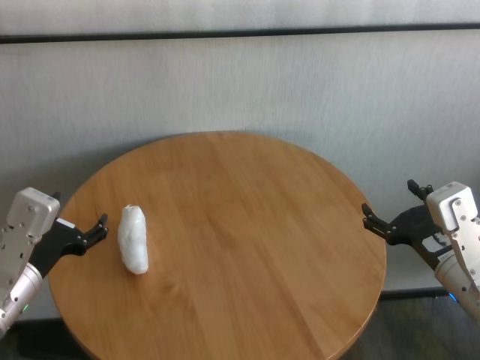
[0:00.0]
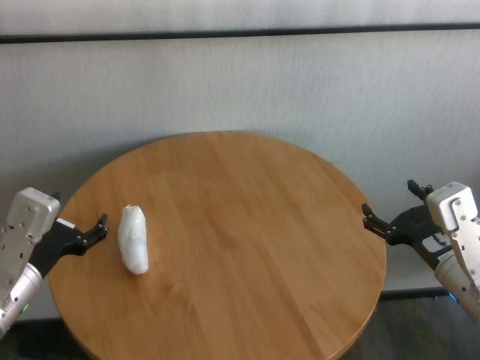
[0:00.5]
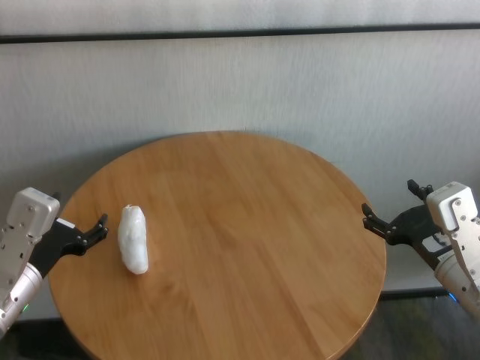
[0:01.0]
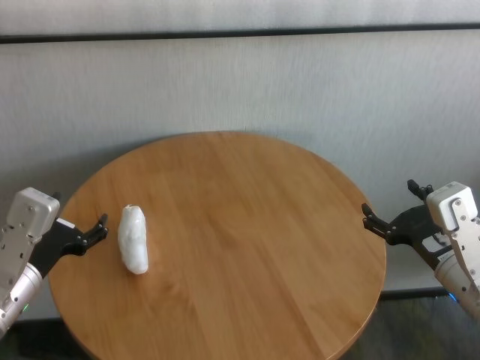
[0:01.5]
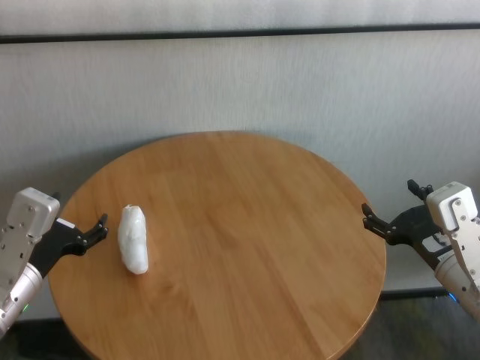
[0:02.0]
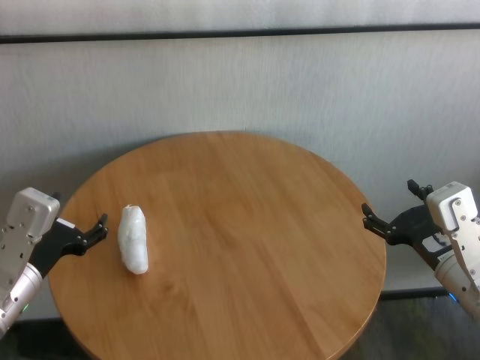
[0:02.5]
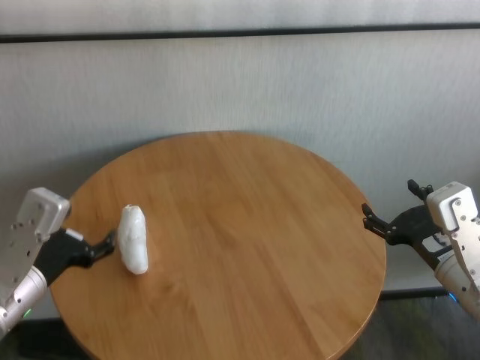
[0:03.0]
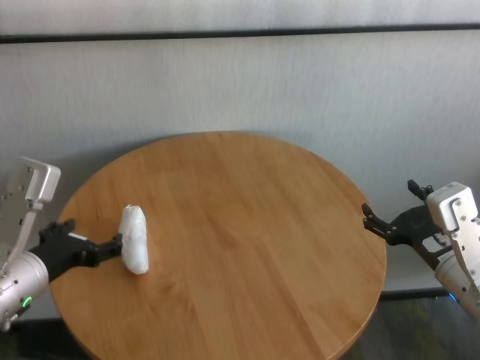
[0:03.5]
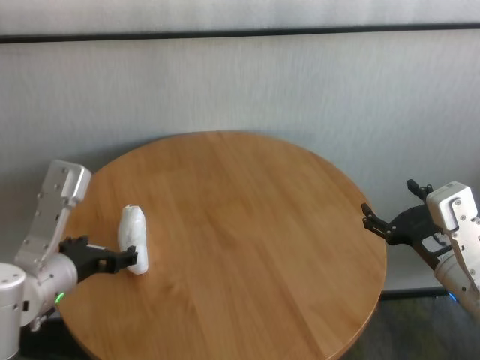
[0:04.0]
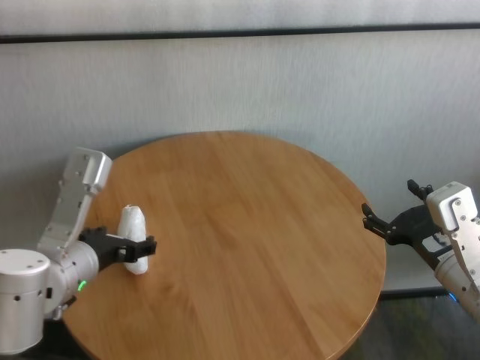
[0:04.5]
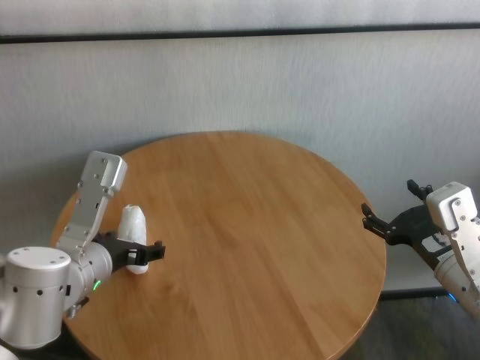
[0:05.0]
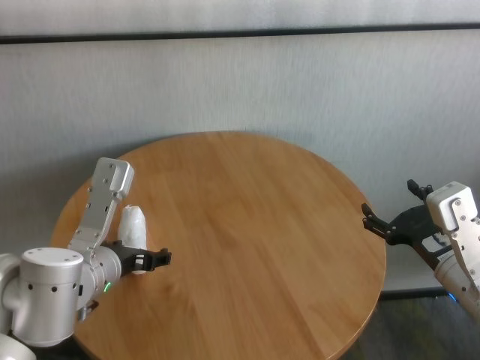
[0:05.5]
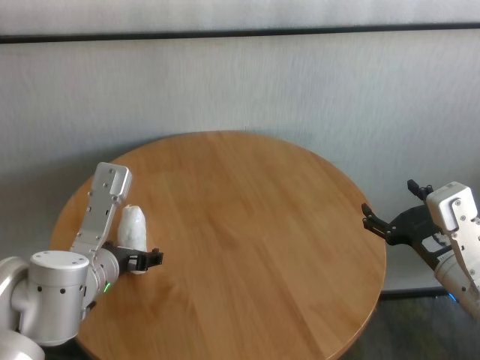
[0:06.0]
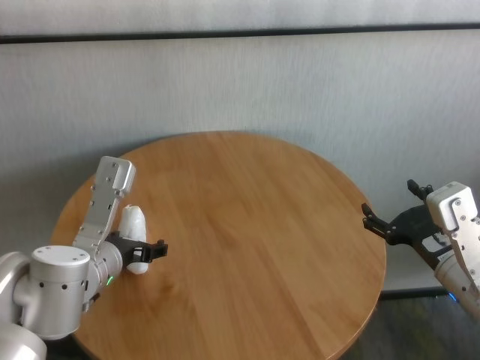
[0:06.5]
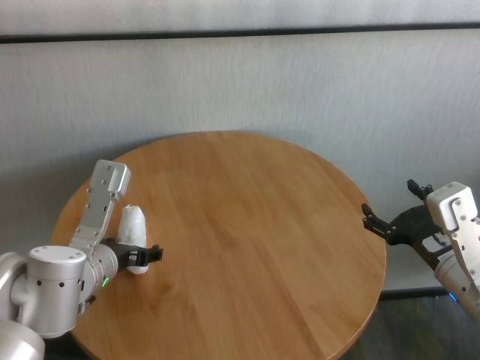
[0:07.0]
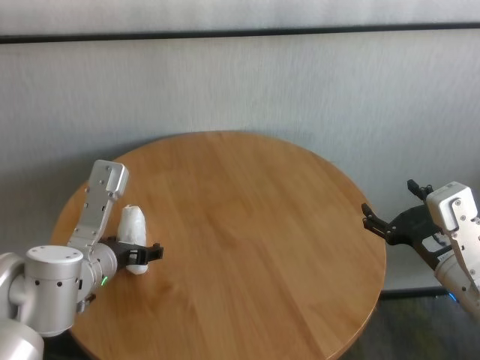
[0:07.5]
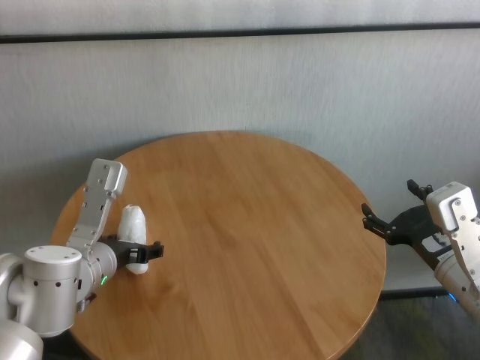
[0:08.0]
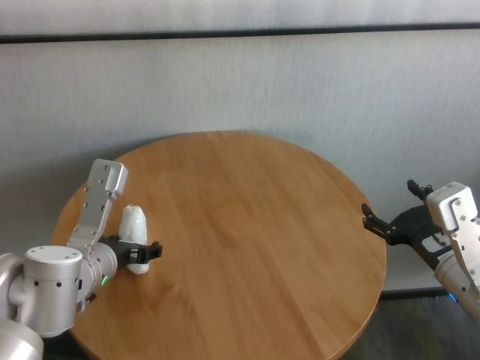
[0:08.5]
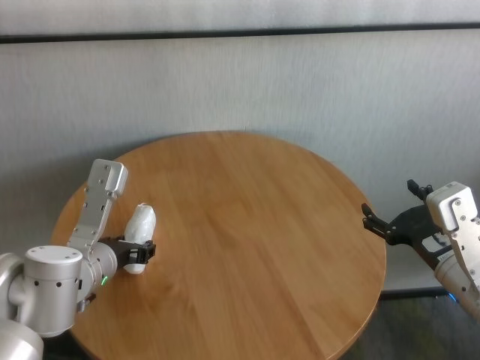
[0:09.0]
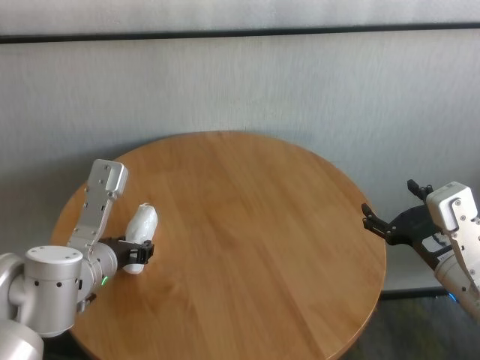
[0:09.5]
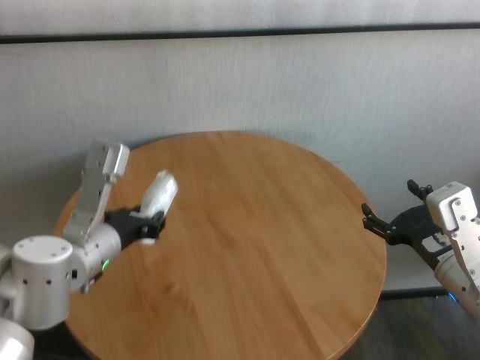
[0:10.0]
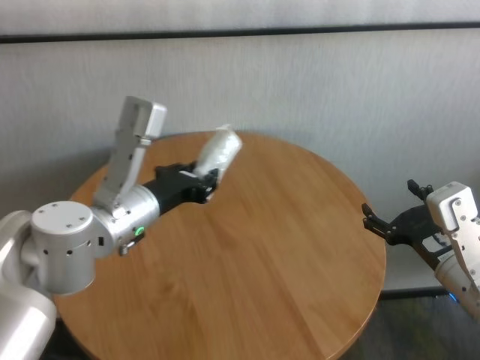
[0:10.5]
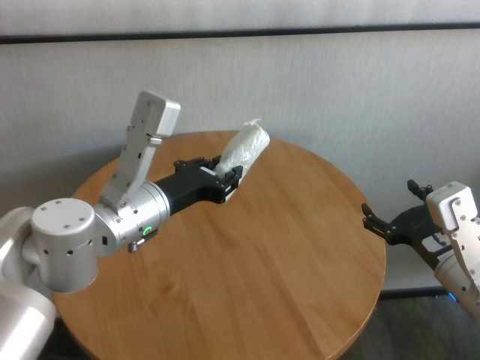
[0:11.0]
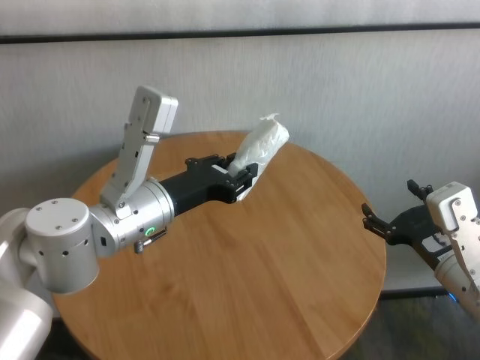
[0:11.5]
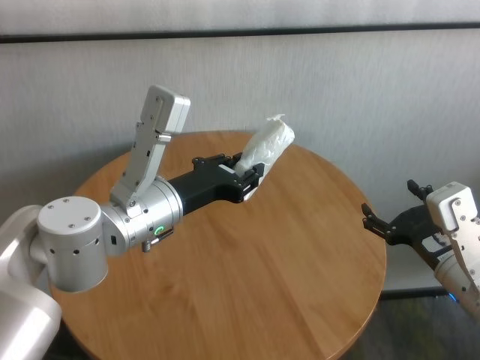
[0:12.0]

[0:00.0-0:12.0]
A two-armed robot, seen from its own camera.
Task of the whole recording: One hand took the sandbag from the other hand and placed it on the table.
Step, 0:00.0 to 0:09.0: Grasp the paper ball with left gripper.

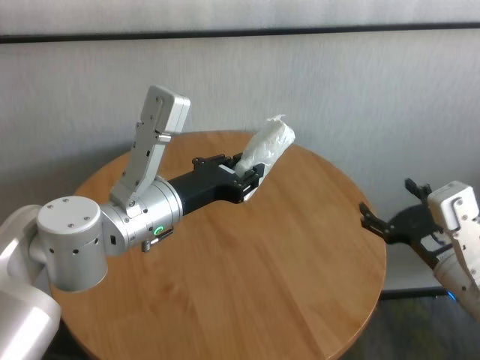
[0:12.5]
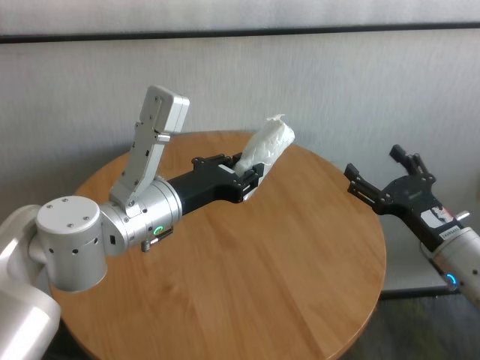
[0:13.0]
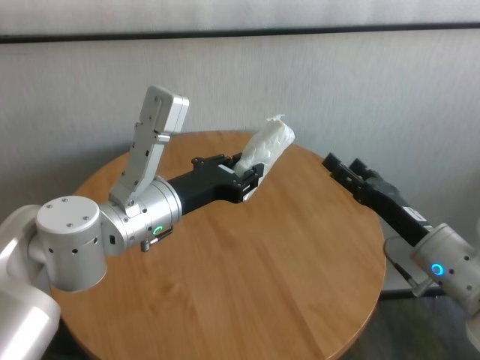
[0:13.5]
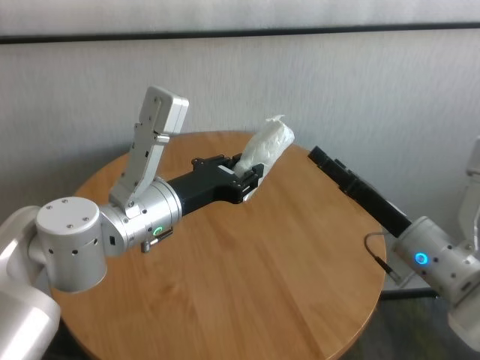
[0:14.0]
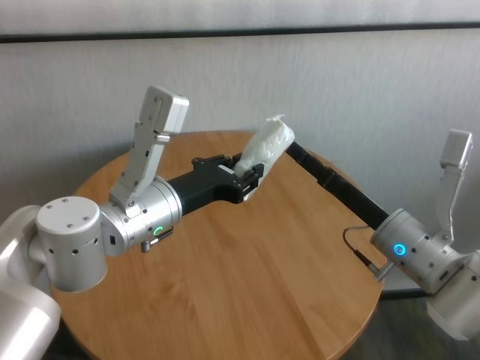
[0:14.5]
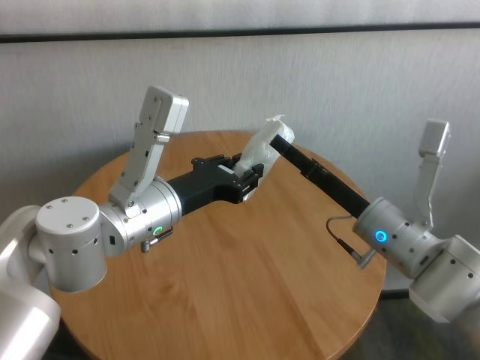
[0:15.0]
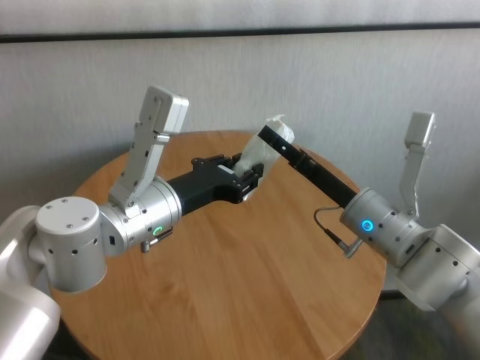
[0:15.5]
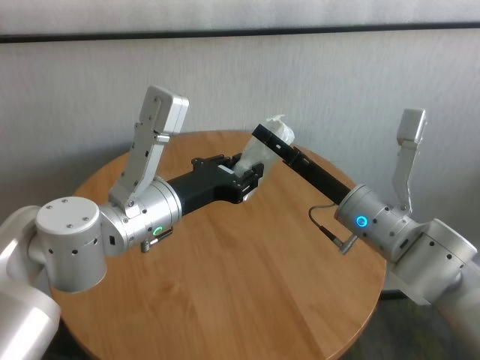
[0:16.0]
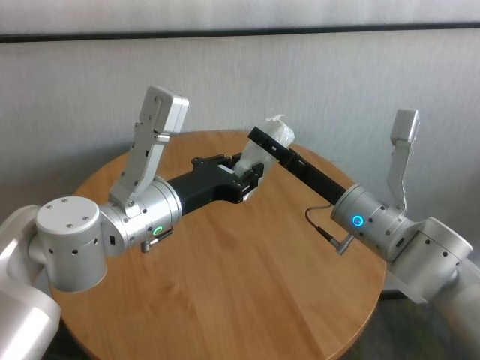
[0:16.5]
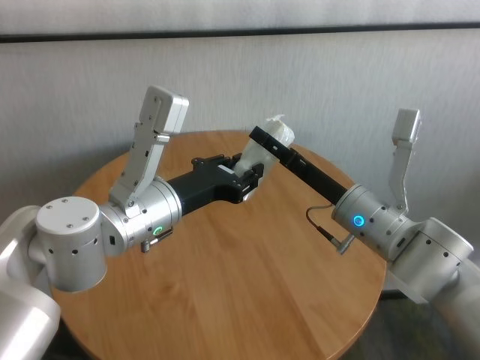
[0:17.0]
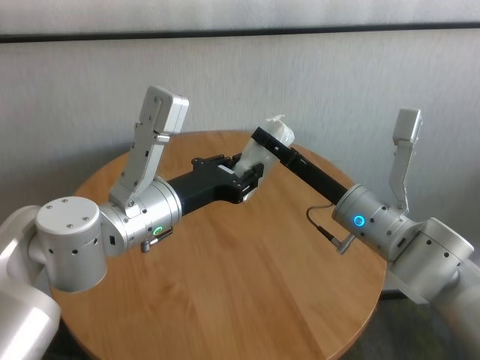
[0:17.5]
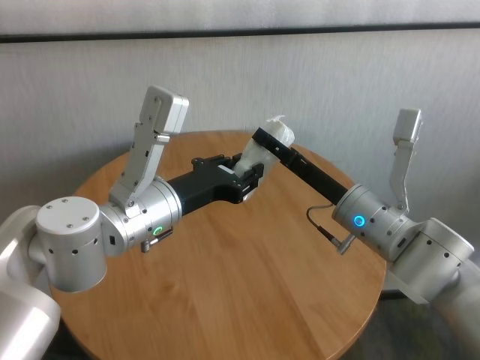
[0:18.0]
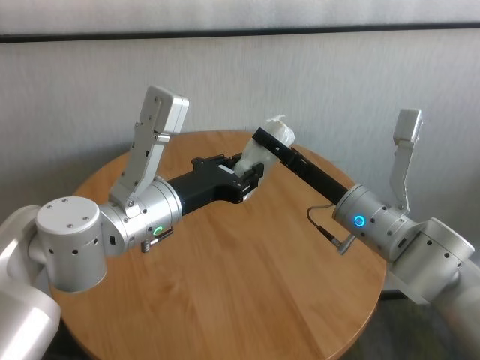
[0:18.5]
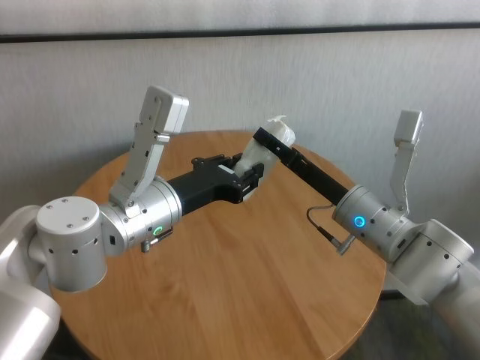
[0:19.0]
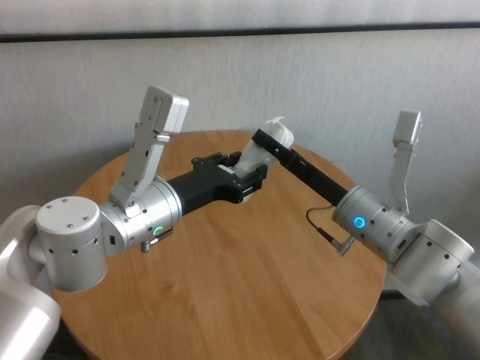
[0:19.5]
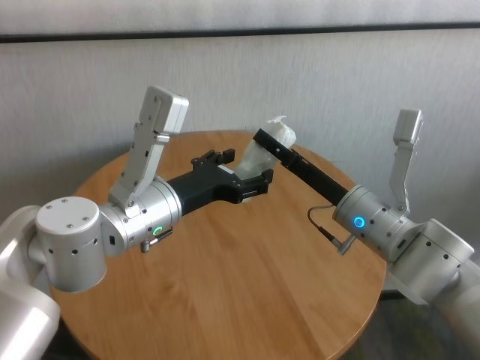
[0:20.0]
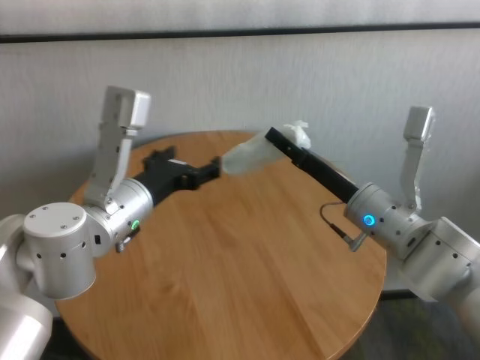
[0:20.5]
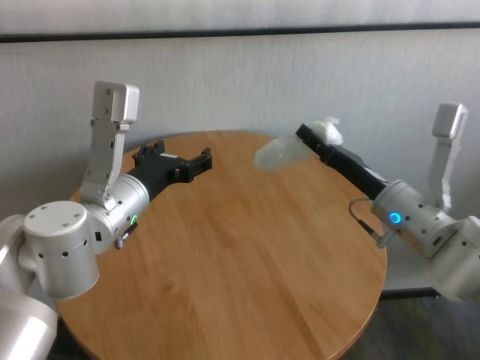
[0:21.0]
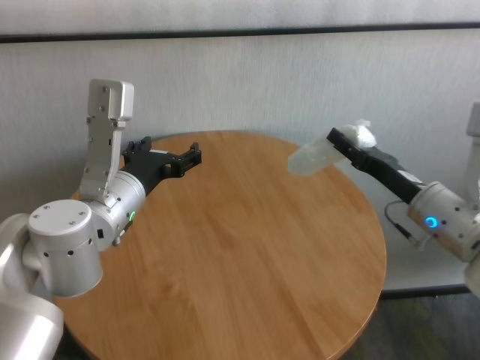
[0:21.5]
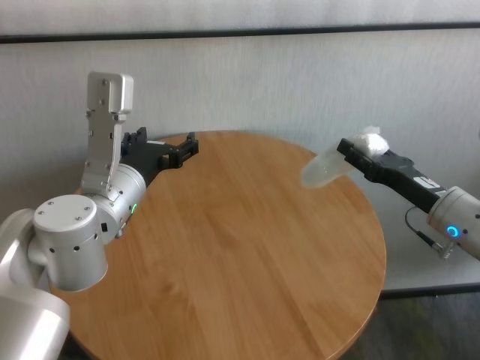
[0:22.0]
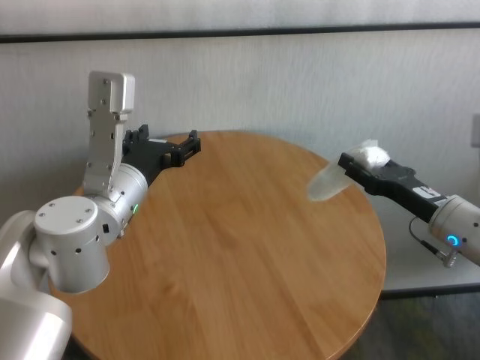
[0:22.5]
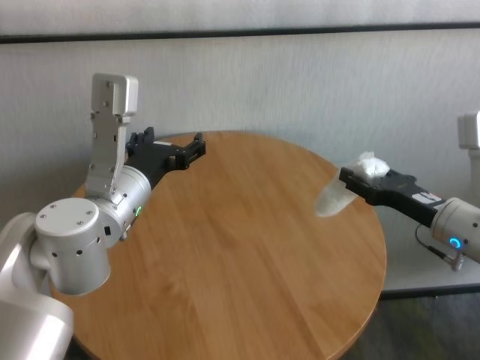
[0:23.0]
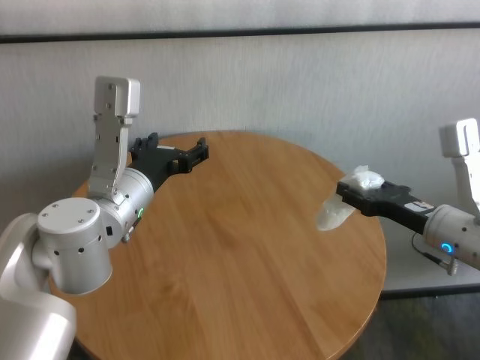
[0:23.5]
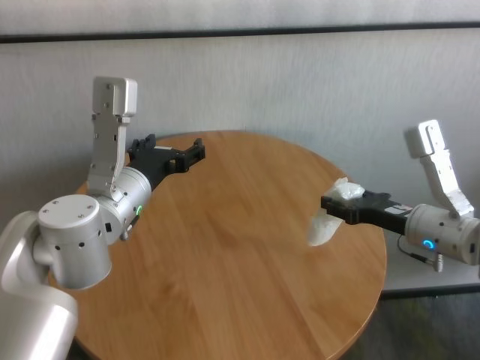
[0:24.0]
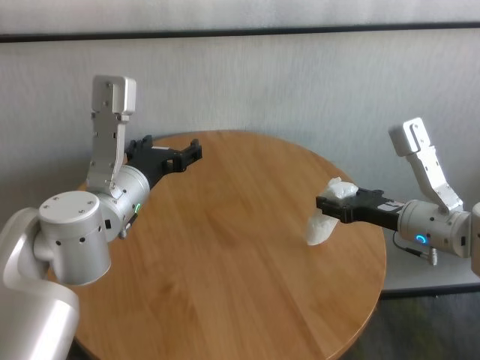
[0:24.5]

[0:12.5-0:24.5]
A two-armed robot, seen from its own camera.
Task of the whole recording: One hand took the sandbag from the other hand and placed it on the table.
Step, 0:12.5 to 0:20.0: Pass the paper ball to the right gripper.

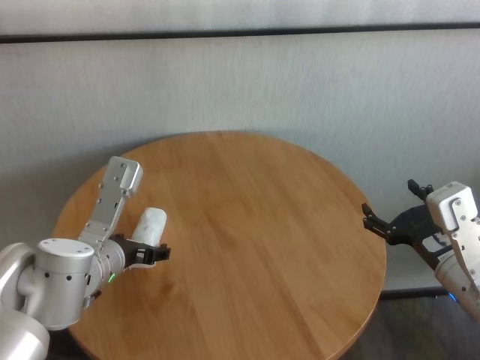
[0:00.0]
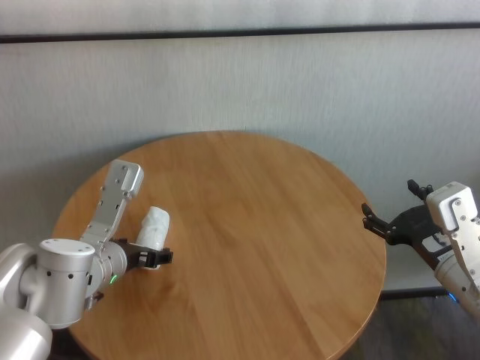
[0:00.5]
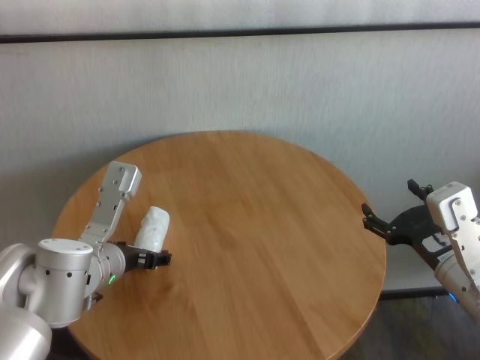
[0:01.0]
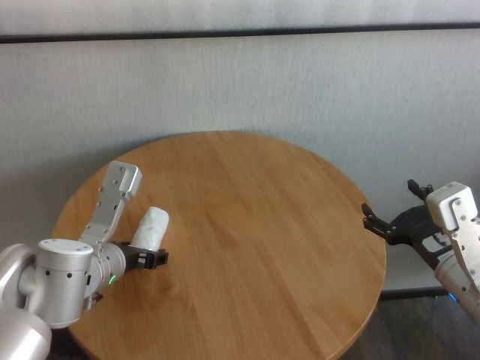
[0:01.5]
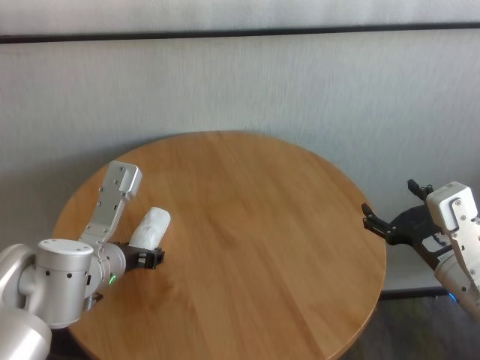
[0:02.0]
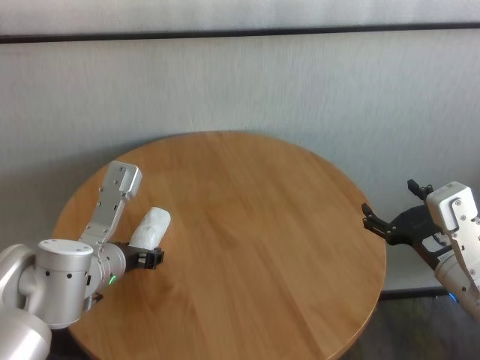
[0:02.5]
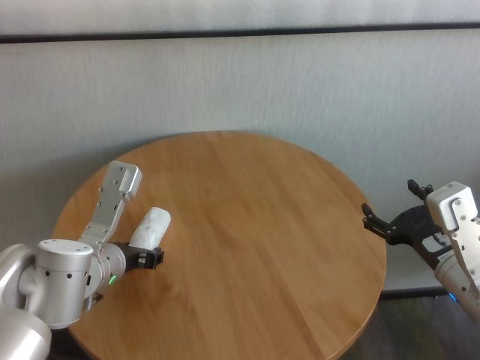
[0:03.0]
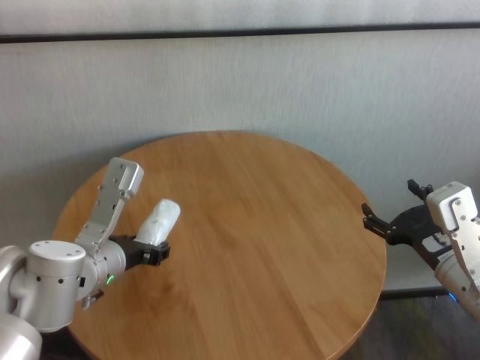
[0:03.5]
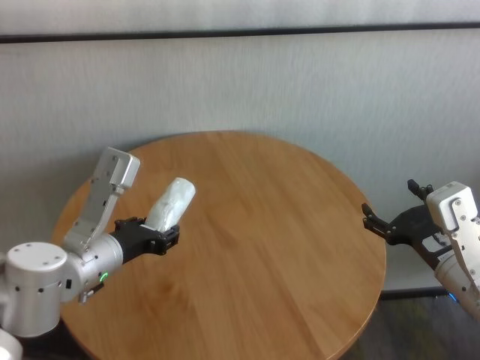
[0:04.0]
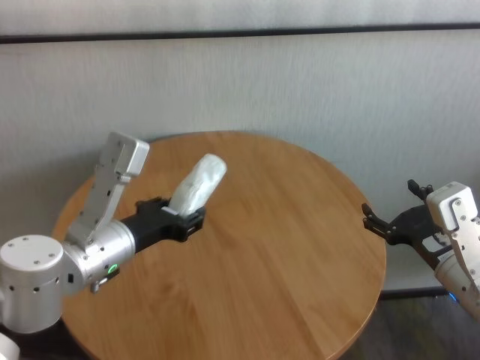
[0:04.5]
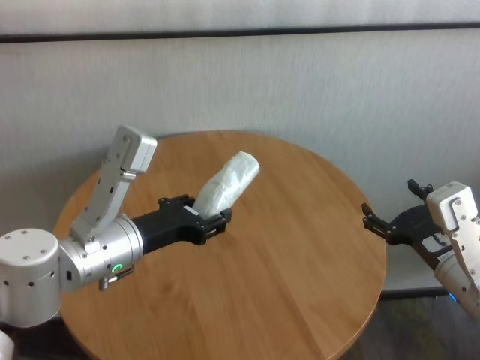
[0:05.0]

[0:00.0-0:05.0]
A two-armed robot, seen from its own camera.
Task of the whole recording: One hand took the sandbag from the other hand and placed it on the table.
Step, 0:00.0 to 0:03.0: Grasp the paper ball with left gripper.
